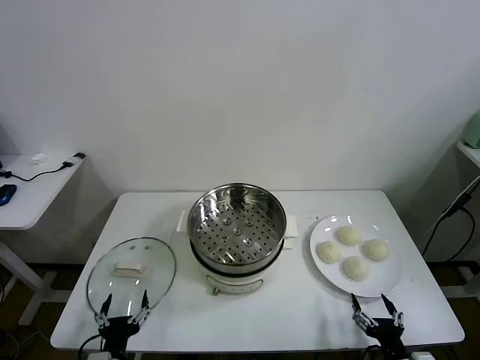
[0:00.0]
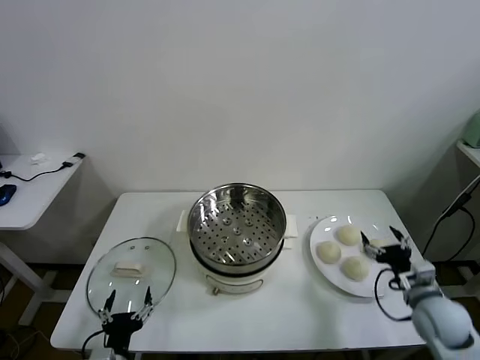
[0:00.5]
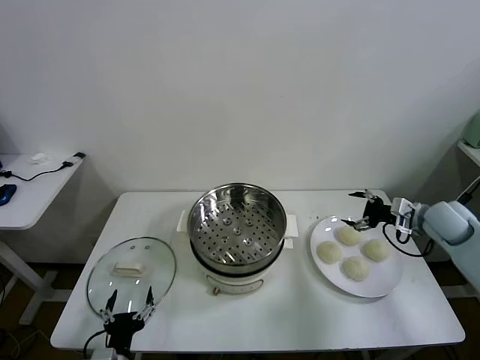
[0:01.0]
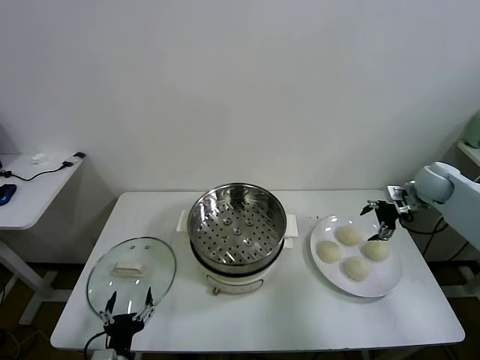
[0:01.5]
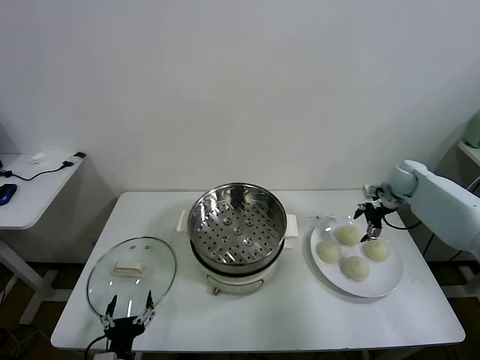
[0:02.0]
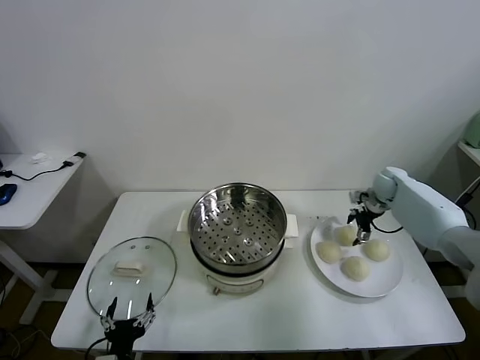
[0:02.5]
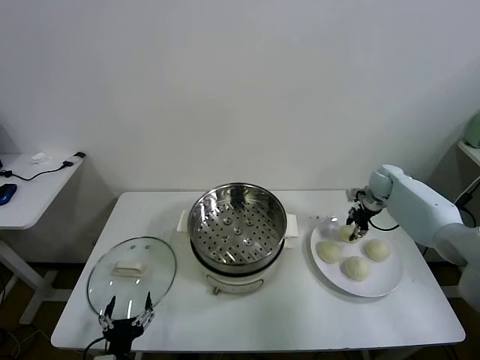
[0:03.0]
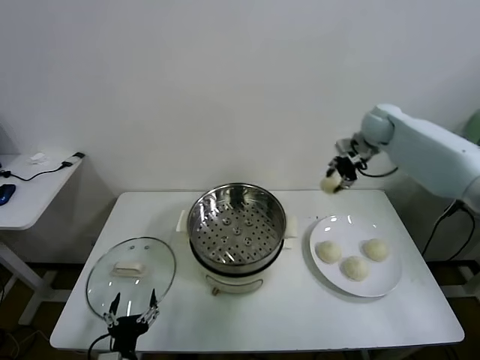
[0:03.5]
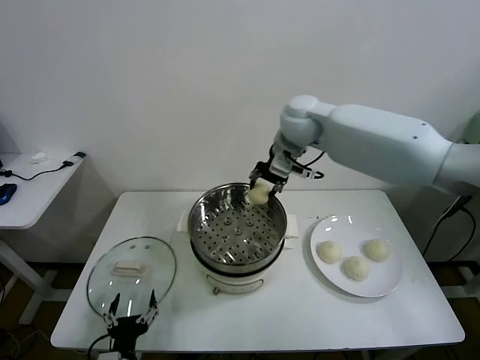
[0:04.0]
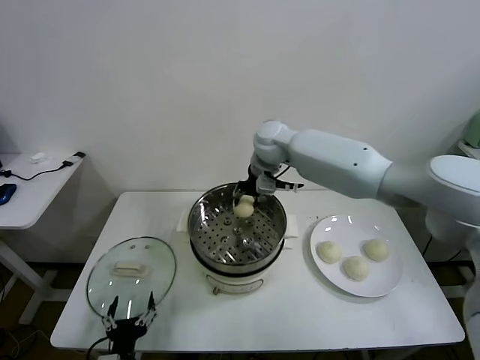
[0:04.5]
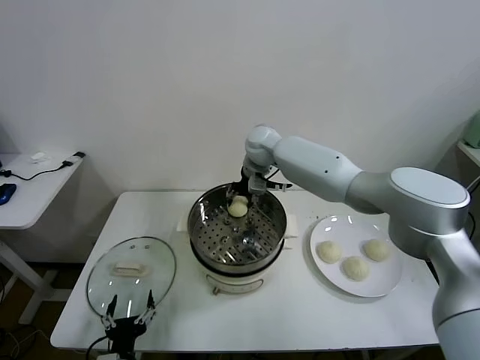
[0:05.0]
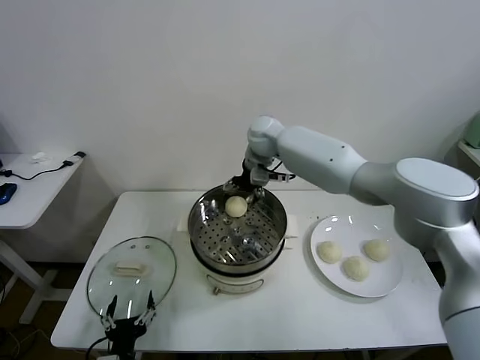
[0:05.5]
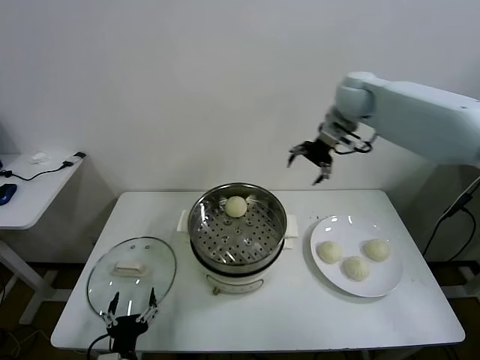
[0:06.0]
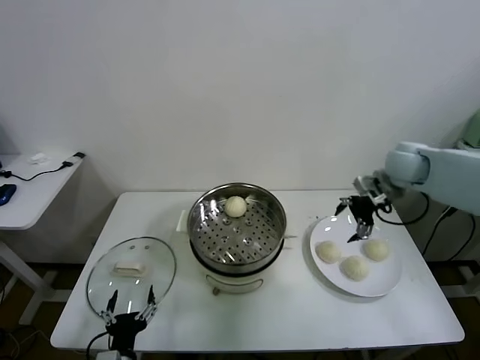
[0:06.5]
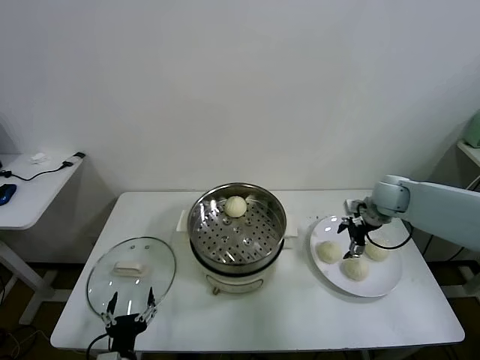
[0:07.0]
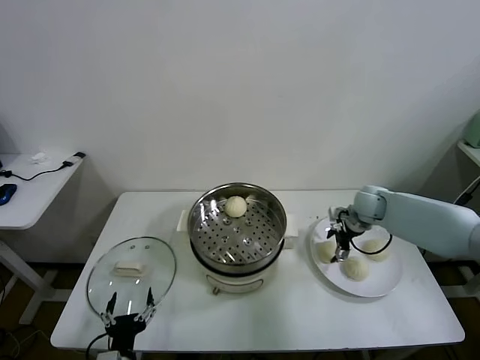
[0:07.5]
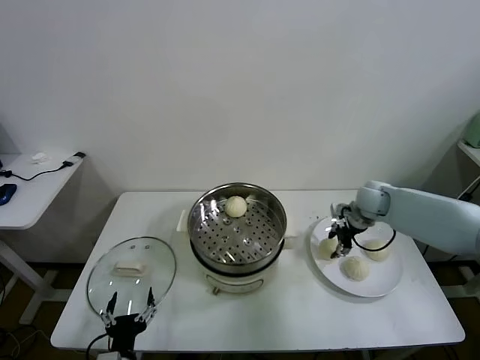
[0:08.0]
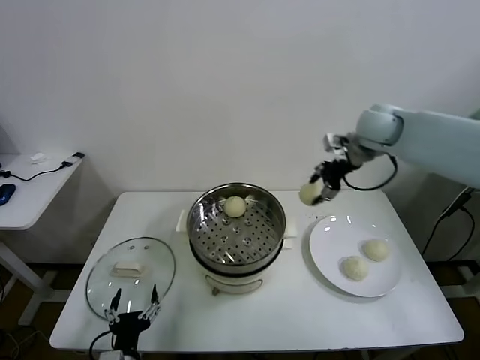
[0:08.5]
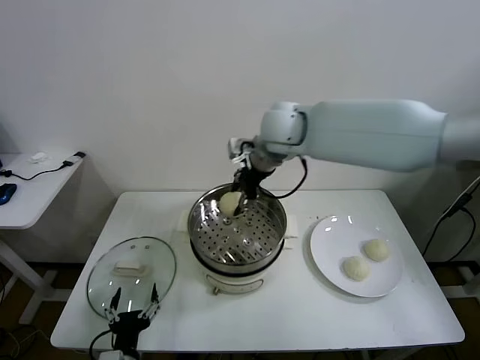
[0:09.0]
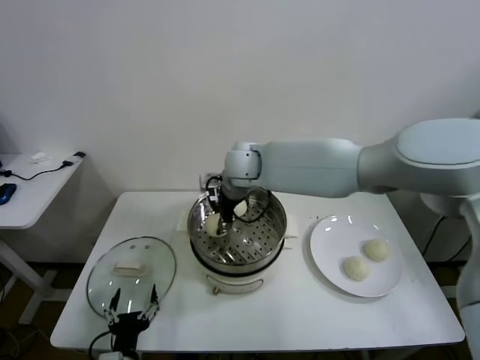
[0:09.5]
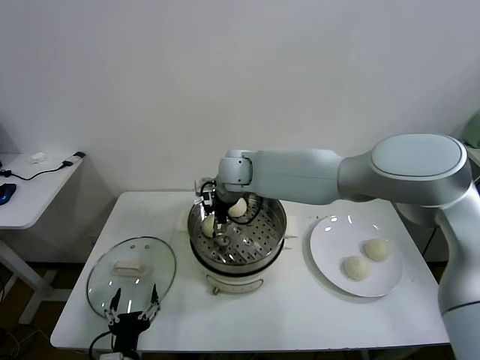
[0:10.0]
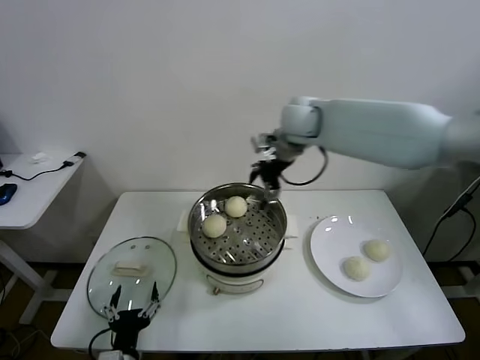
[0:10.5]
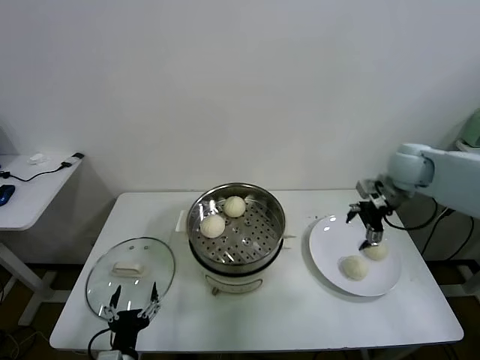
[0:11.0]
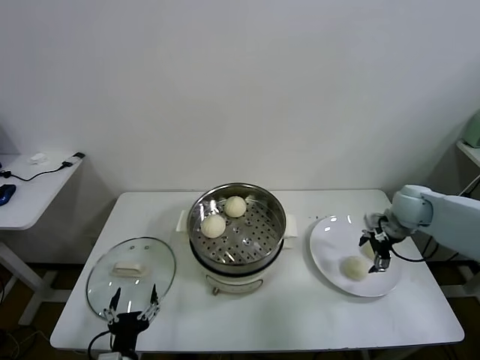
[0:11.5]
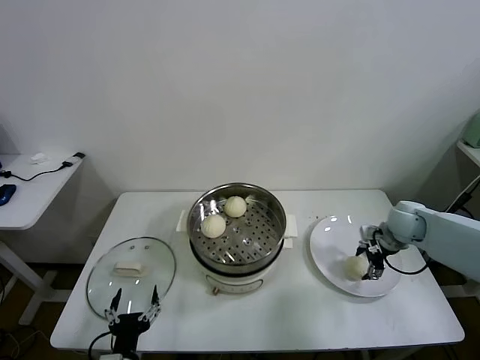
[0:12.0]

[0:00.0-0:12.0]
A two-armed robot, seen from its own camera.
Task of the whole recording: take steamed baozi put them in steamer.
Step, 0:00.0 to 0:02.5: Grasp the baozi in the plate with right gripper.
Step, 0:03.0 to 0:05.5: Place the baozi on the steamer with right gripper.
Step, 0:06.0 to 0:07.5: Grasp the baozi in the plate with right gripper.
Step, 0:08.0 to 0:10.0: Place the baozi on the steamer with right gripper.
0:02.0 to 0:04.0: The right gripper shifts about 40 cm to the left and upward, and closes up.
0:04.0 to 0:06.0: The right gripper travels to the right by approximately 20 cm, and opens up.
0:06.0 to 0:08.0: The right gripper travels downward by about 20 cm, and closes.
0:08.0 to 0:10.0: The right gripper heads to the left, covering about 35 cm, and opens its fingers.
0:10.0 to 0:12.0: The right gripper moves to the right, roughly 40 cm.

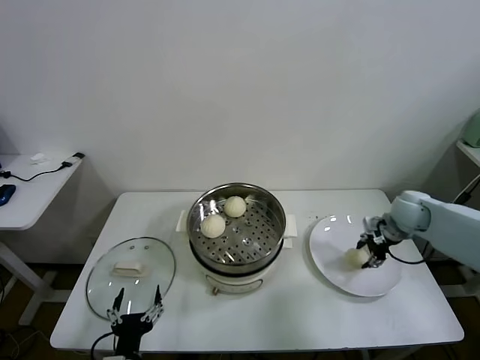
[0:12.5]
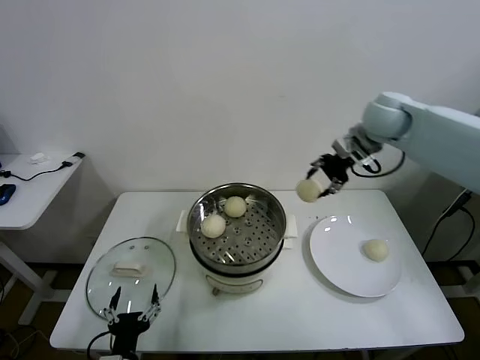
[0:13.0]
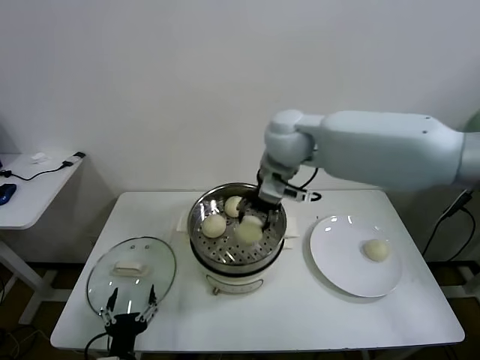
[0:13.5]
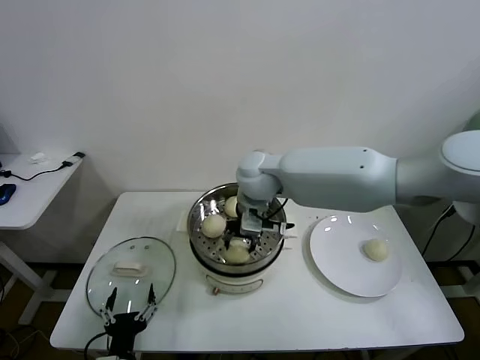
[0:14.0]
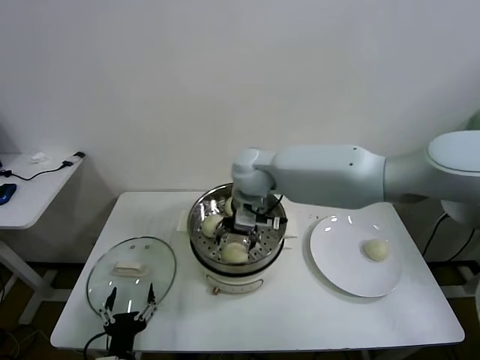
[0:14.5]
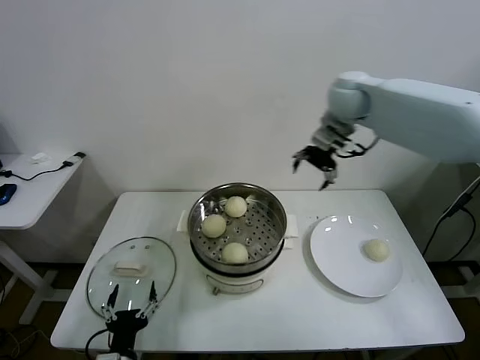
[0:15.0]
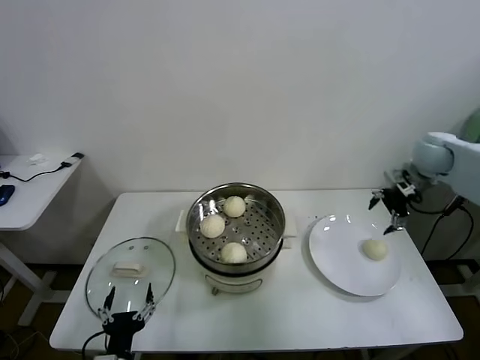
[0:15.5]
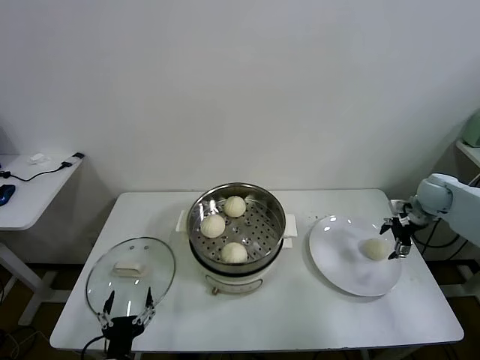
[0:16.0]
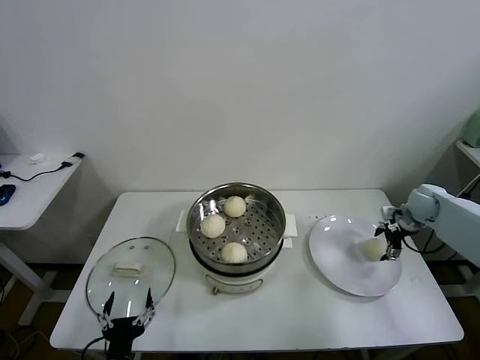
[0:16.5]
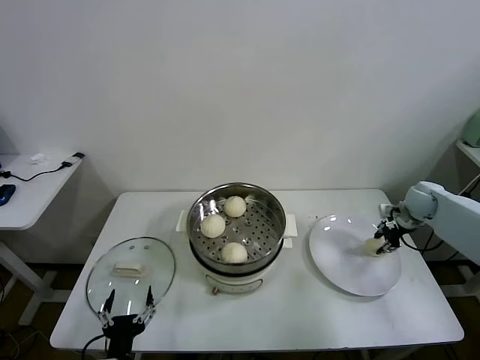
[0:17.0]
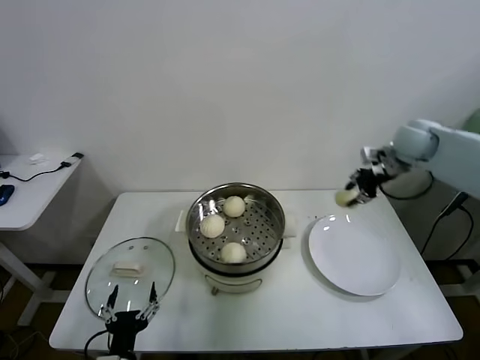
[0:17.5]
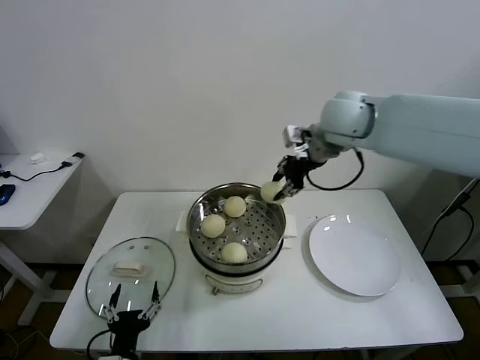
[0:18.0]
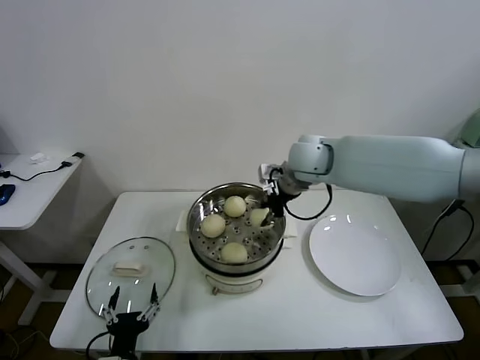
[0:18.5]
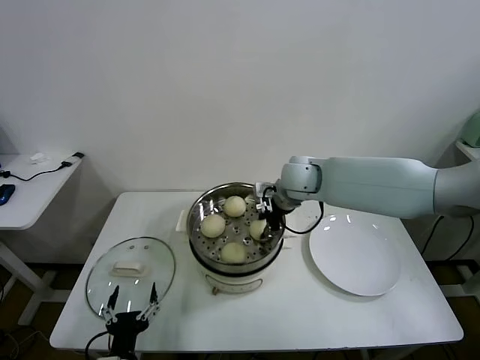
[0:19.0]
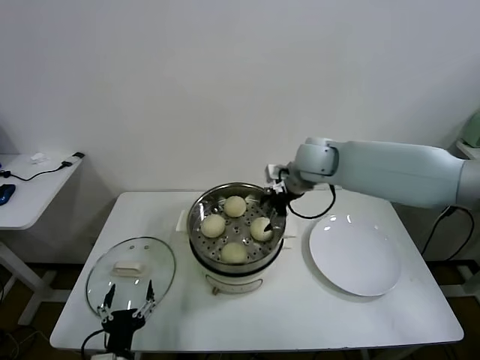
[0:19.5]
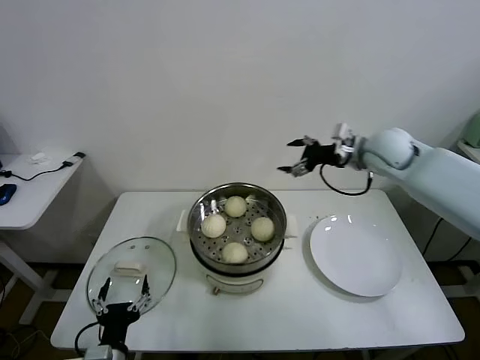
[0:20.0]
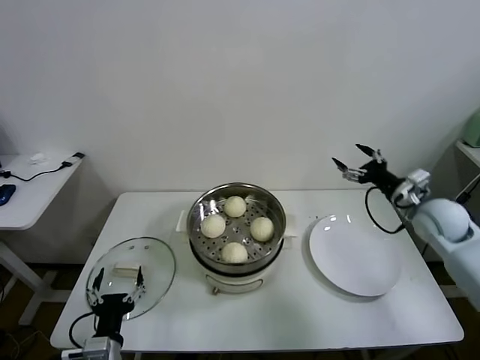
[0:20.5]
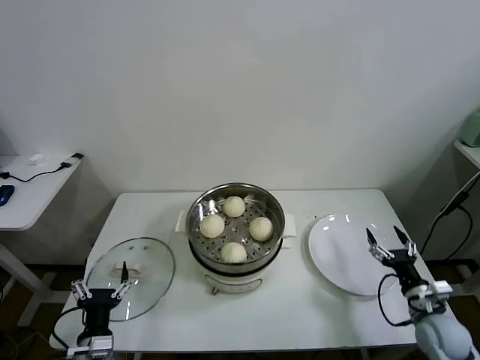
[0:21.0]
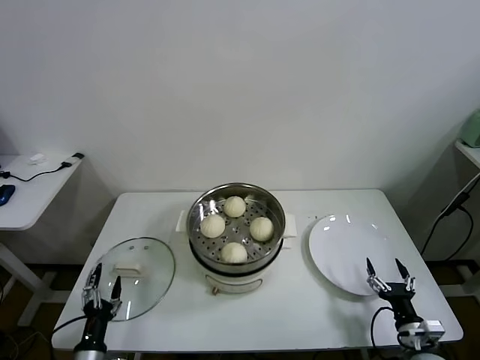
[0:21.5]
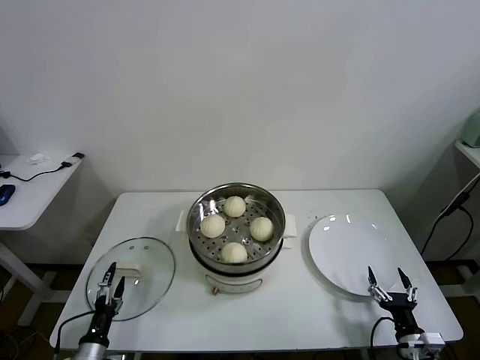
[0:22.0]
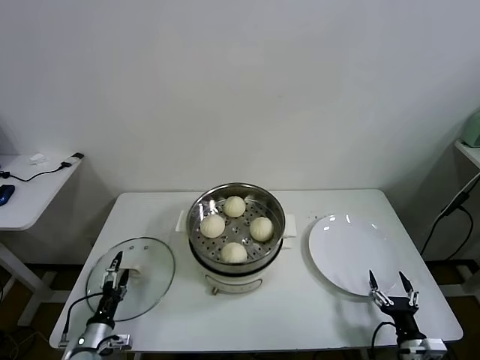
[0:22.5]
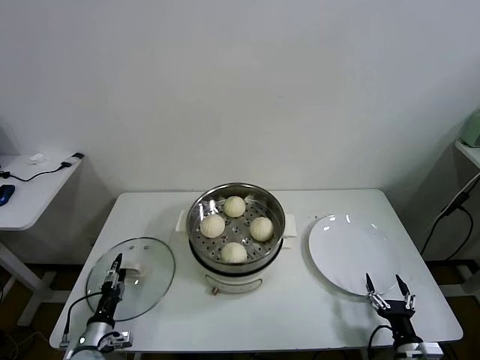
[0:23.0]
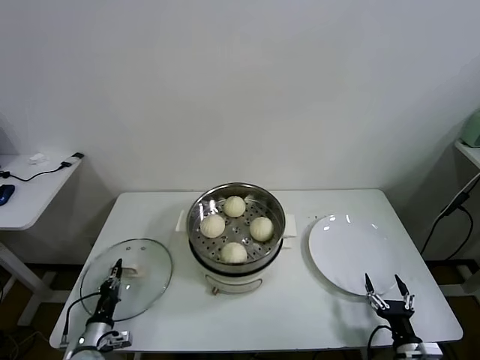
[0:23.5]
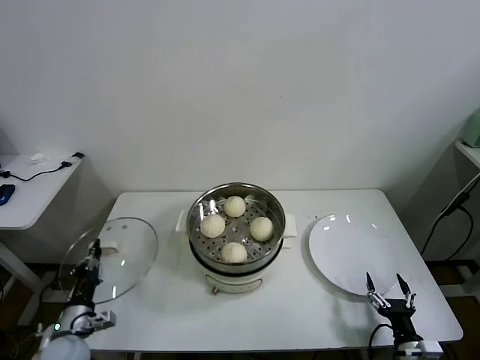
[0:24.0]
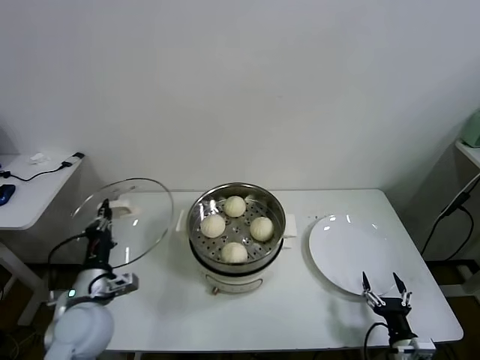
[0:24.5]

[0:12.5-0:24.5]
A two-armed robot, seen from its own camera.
Task of the whole recording: take steamed baozi put them in steamer.
Step, 0:12.5 to 0:14.5: Place the baozi on the steamer with right gripper.
Step, 0:15.0 to 0:16.5: Grasp the baozi in the plate with right gripper.
Step, 0:17.0 to 0:19.0: Place the baozi on the steamer with right gripper.
Step, 0:19.5 to 0:23.5: Grasp the pot lid with left gripper.
0:12.5 to 0:14.5: The right gripper travels to the left by roughly 40 cm, and opens up.
0:14.5 to 0:16.5: The right gripper goes about 50 cm to the right.
0:16.5 to 0:18.5: The right gripper is displaced to the left and upward by roughly 40 cm, and closes up.
0:18.5 to 0:20.5: The right gripper shifts roughly 30 cm to the right, and opens up.
0:20.5 to 0:22.5: The left gripper heads downward, to the left and forward, covering approximately 15 cm. Meanwhile the right gripper is displaced backward and downward by roughly 35 cm.
0:22.5 to 0:24.5: The left gripper goes roughly 20 cm upward, and closes.

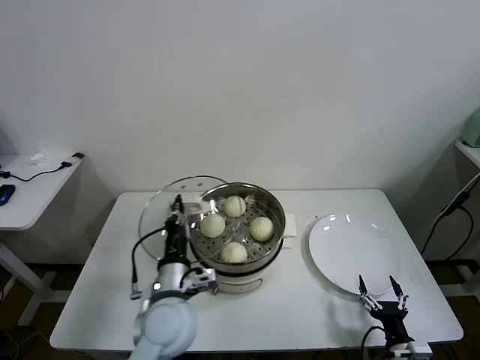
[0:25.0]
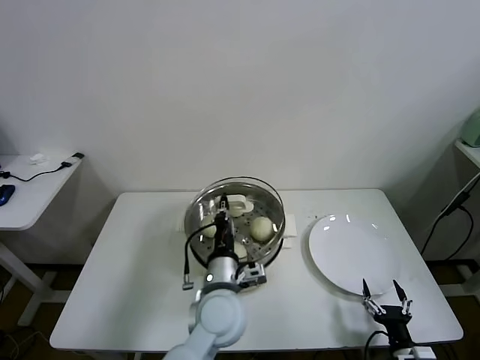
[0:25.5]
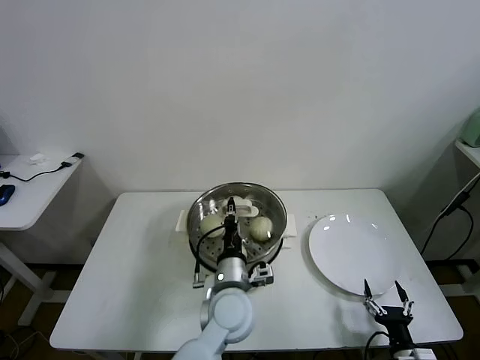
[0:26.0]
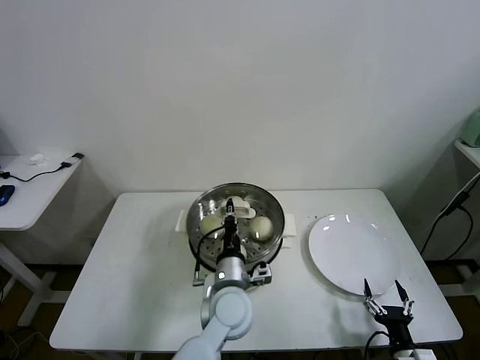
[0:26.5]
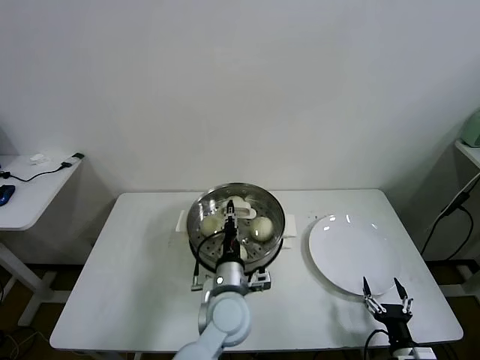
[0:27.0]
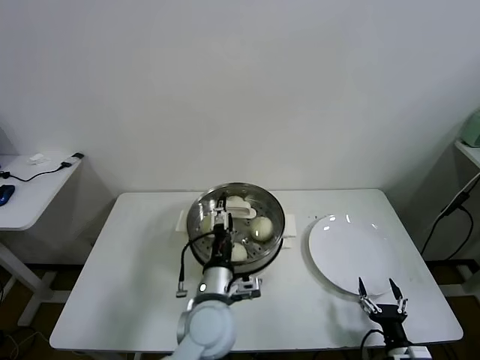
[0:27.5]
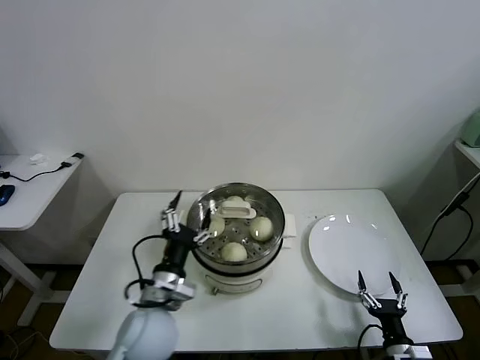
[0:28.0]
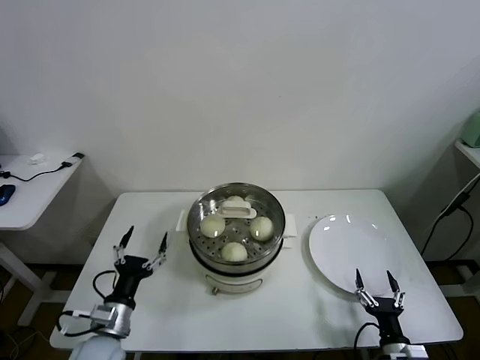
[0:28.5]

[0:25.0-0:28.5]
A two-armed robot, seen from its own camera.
Task of the whole recording: take steamed baozi put them in steamer.
Step, 0:25.0 to 0:27.5: Place the pot lid on the steamer with left gripper.
0:25.0 to 0:27.0: The left gripper goes some 15 cm to the right.
0:27.0 to 0:28.5: The left gripper is displaced to the left by about 25 cm, and opens its fingers.
